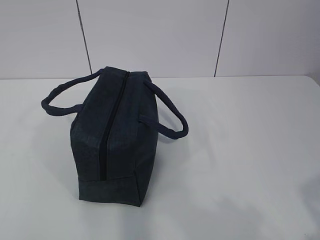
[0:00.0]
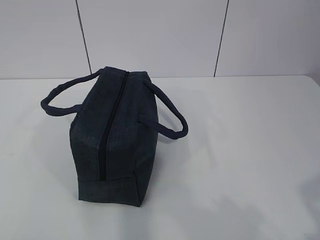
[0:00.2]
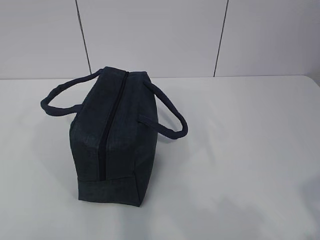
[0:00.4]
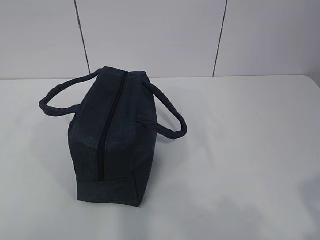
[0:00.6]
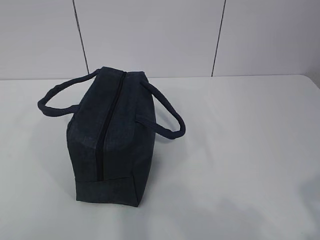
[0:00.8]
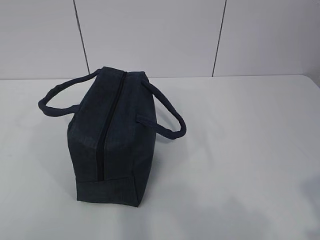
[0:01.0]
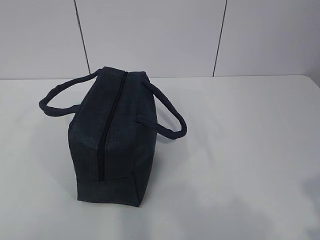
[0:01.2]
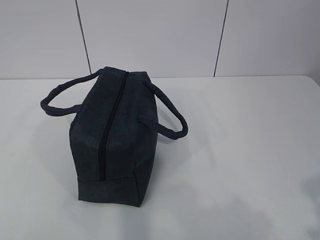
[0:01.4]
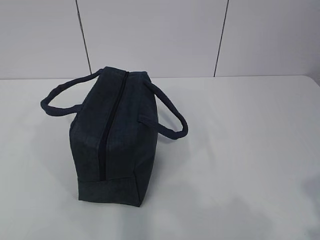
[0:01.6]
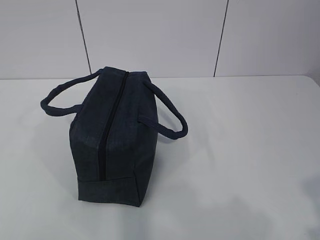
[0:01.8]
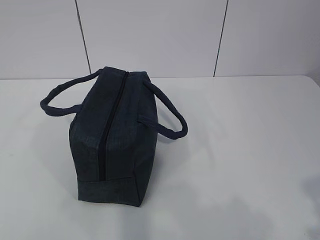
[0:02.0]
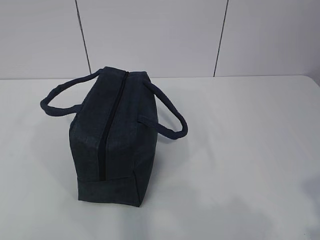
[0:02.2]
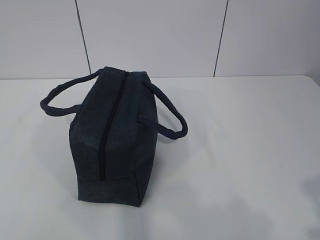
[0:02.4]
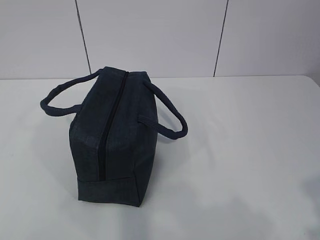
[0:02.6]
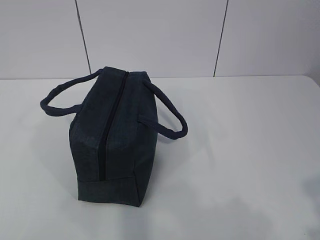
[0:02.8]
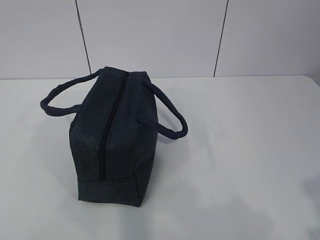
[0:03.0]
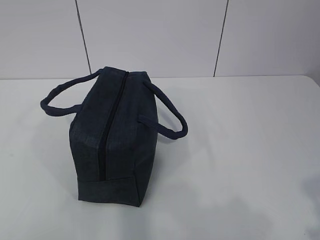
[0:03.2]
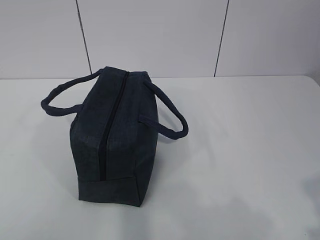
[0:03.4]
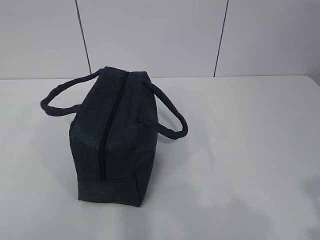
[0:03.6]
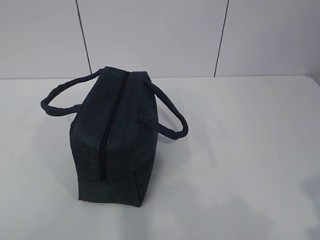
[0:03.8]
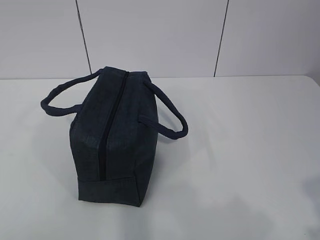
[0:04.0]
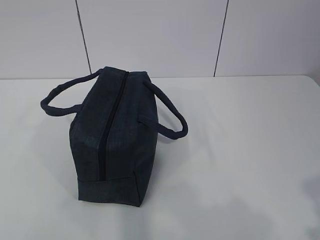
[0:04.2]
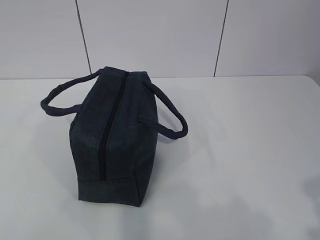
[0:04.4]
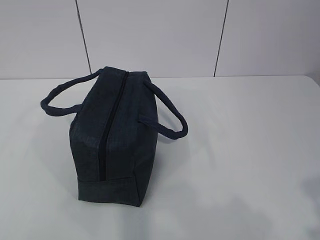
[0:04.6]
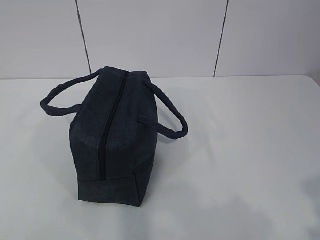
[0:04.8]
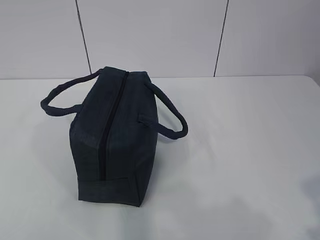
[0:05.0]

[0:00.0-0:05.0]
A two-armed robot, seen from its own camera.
0:01.6 to 0:05.0: Both grippers stay put.
